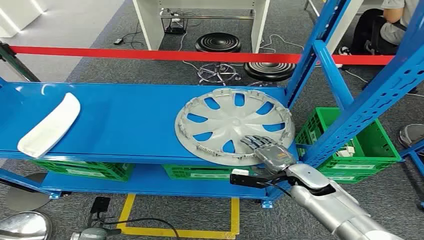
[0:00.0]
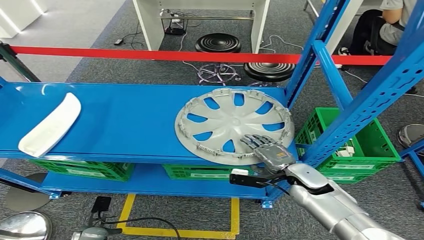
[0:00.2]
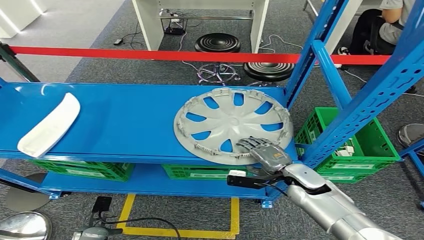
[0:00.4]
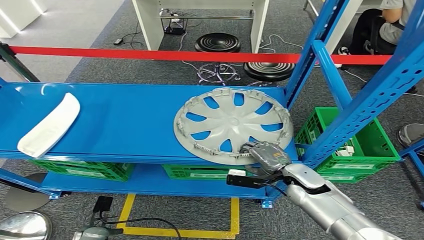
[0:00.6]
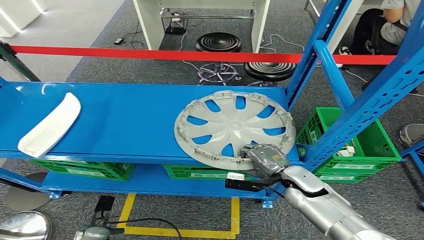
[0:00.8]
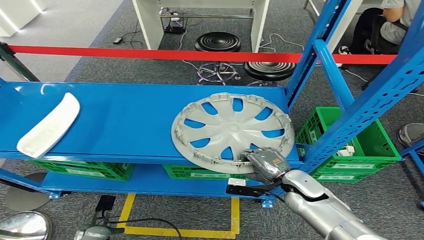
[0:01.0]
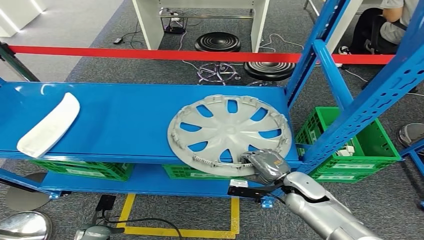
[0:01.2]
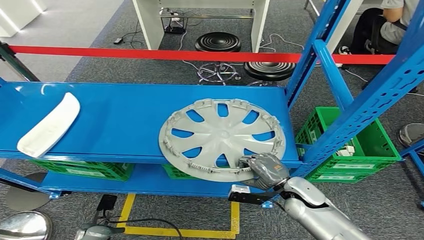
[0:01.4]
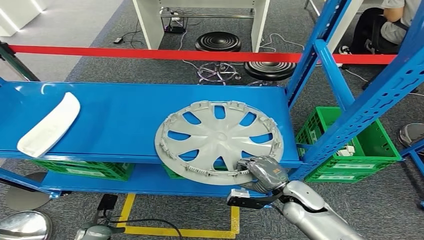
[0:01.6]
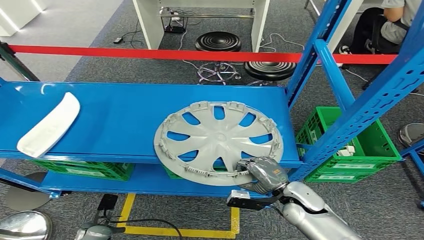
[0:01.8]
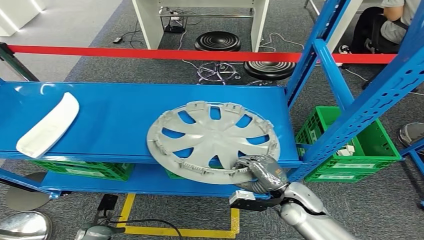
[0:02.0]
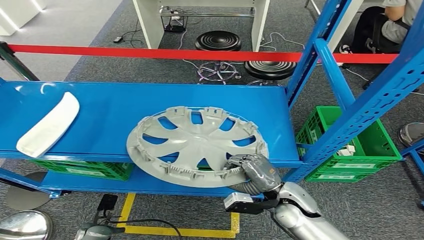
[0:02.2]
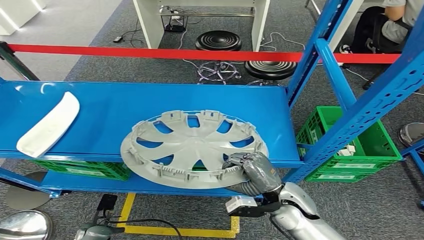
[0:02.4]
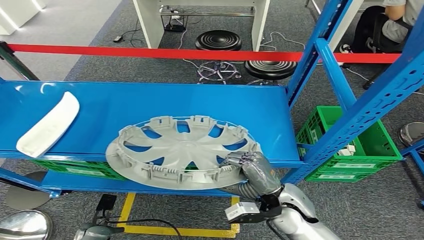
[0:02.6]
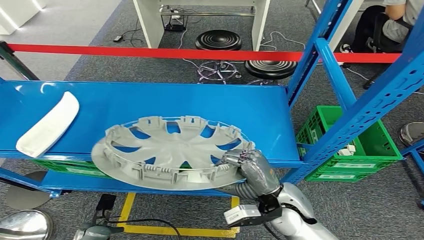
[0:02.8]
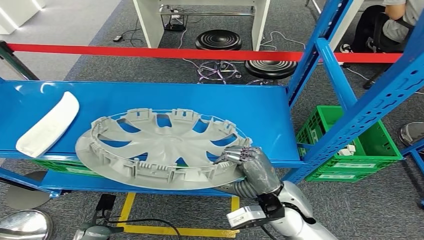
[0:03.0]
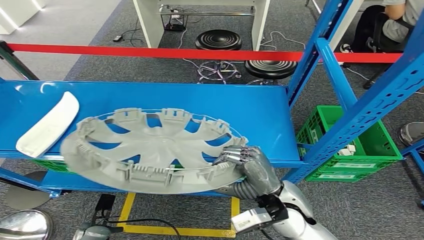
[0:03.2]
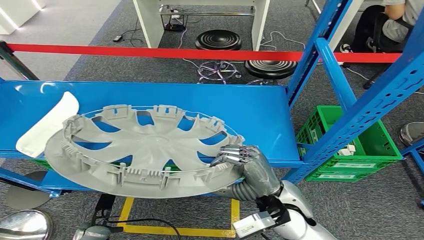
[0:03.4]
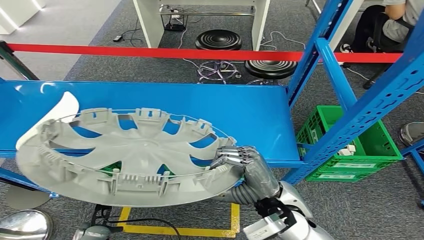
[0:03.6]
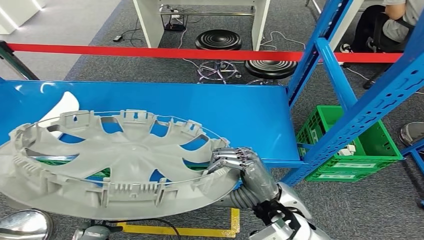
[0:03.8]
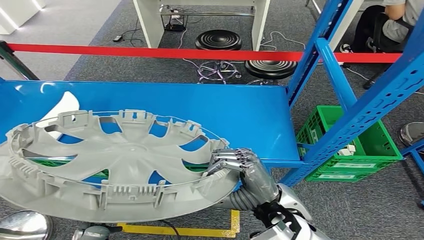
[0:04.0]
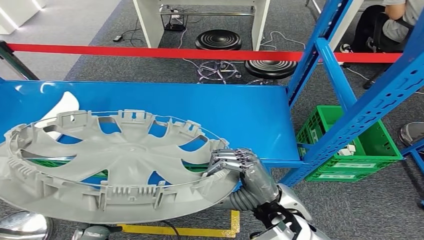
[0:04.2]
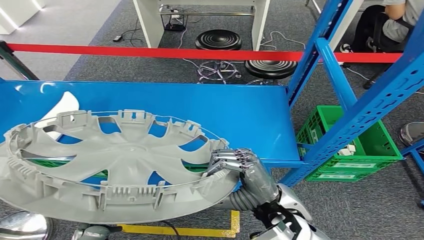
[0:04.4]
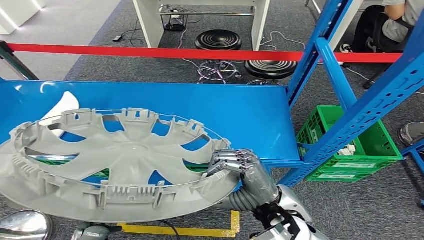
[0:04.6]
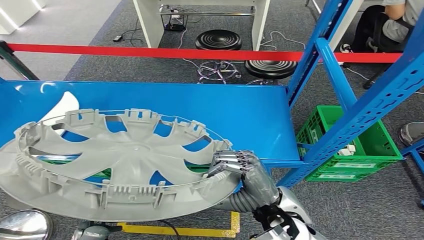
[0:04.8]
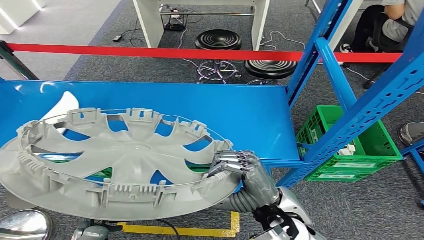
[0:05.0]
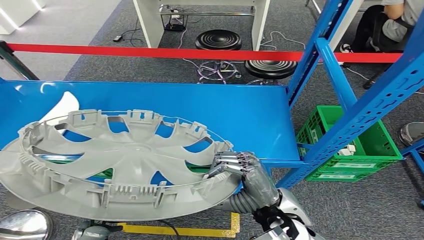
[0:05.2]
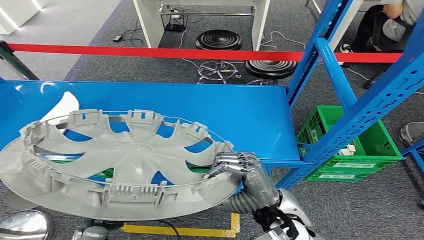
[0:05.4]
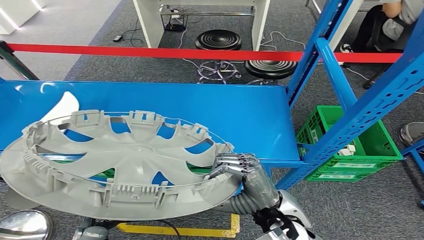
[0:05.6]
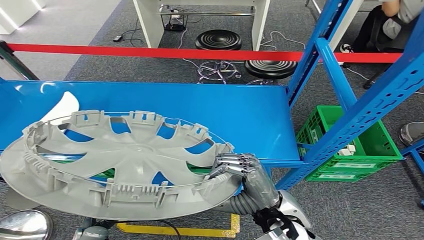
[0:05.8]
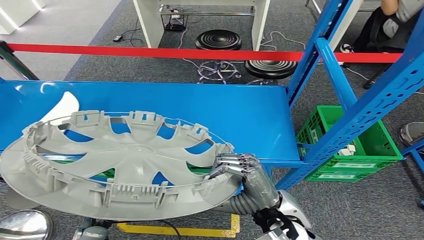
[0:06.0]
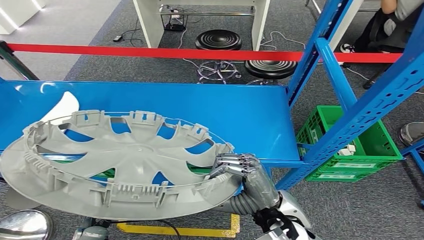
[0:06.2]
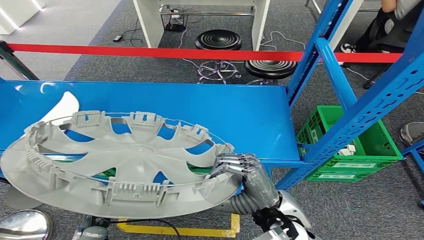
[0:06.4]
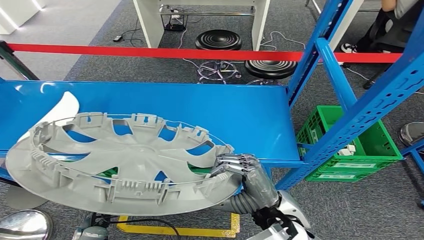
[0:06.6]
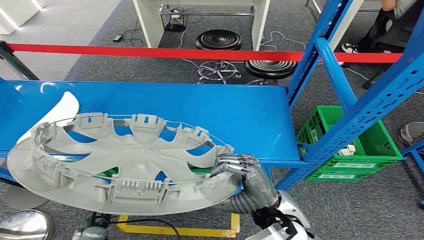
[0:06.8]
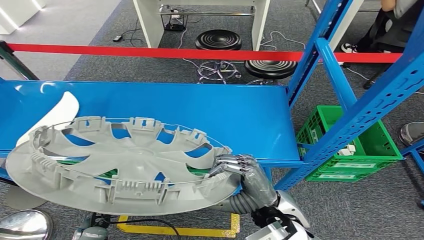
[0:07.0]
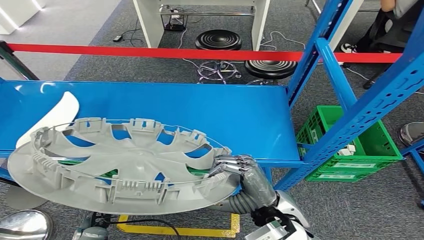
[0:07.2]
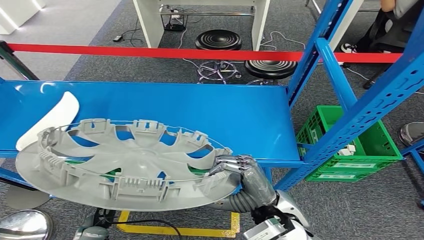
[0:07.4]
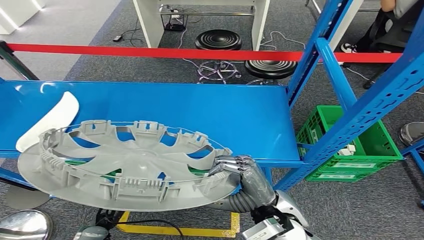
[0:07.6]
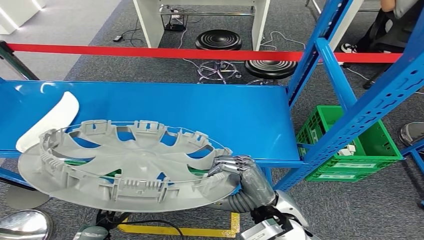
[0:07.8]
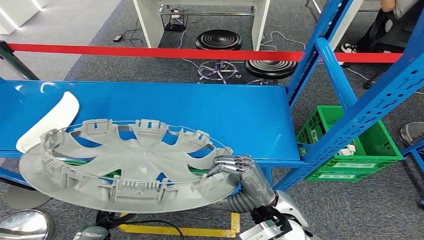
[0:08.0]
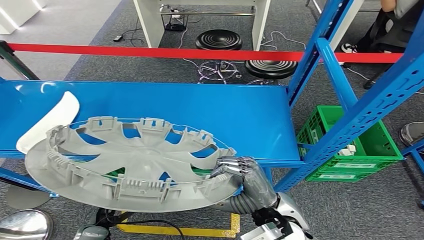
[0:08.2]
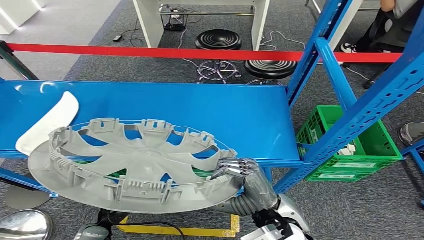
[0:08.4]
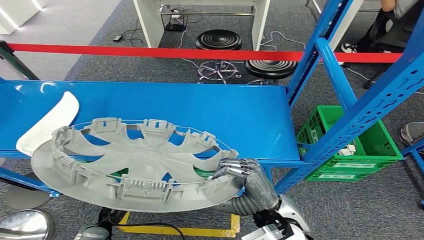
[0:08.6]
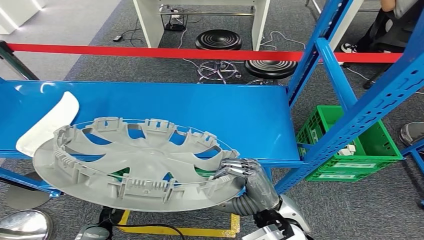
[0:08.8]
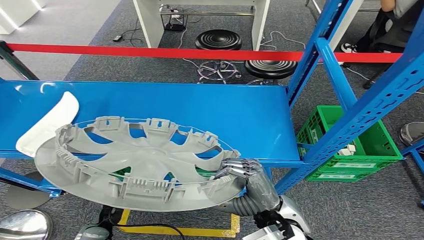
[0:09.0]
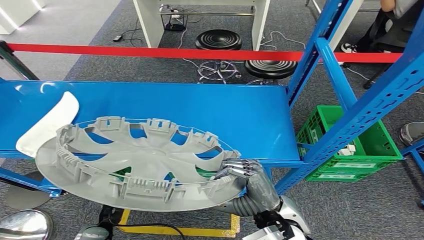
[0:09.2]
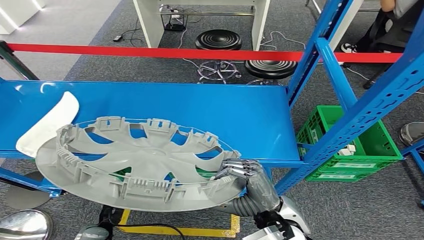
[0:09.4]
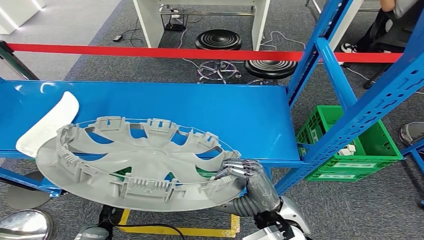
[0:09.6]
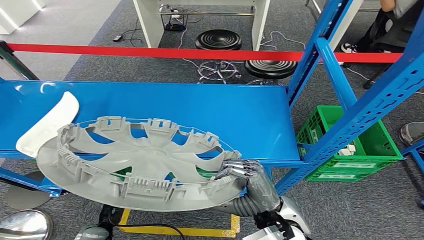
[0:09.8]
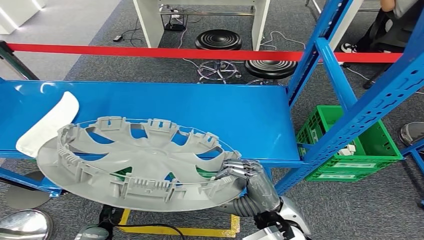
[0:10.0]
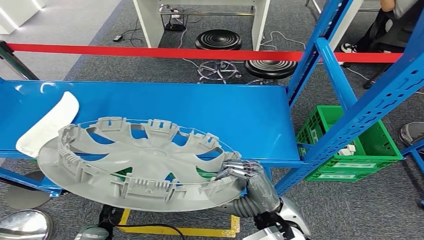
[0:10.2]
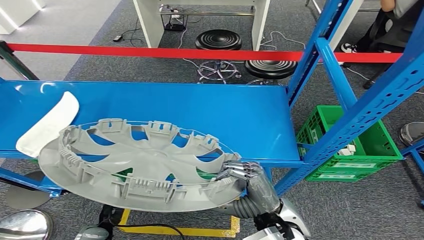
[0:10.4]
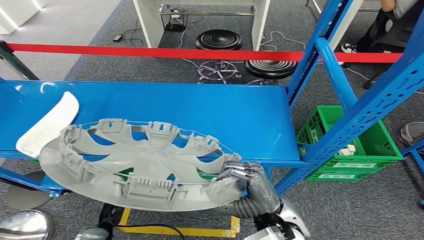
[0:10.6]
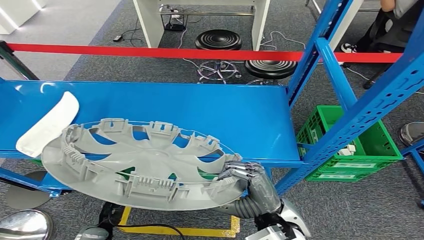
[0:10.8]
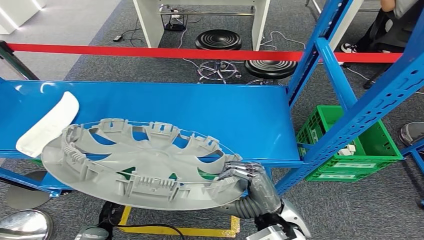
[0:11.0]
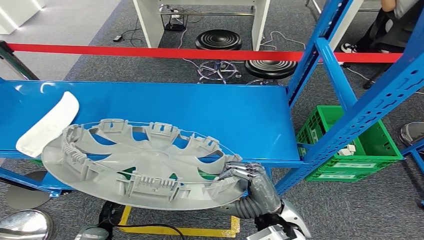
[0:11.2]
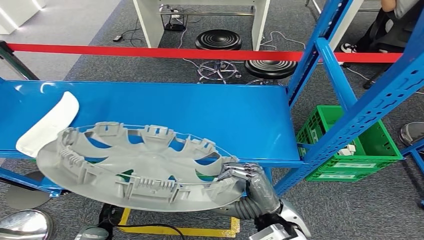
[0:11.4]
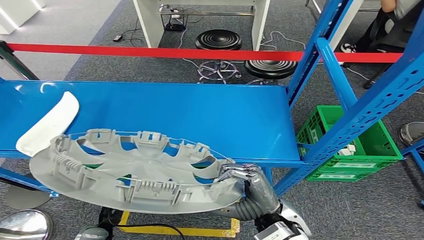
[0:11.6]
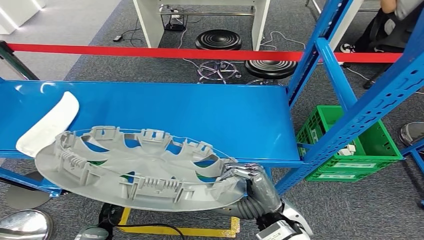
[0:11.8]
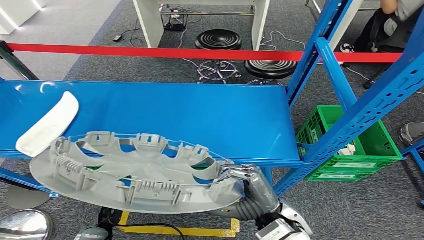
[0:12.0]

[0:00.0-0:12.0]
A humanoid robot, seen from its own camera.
Step, 0:00.0 to 0:00.6: Grasp the gray part with right gripper.
0:04.4 to 0:07.6: There are only small adjustments of the hands.
0:07.6 to 0:09.0: The hands move only a little.
0:09.0 to 0:10.4: Both hands stay about where they are.
0:10.4 to 0:12.0: The hands make only small movements.

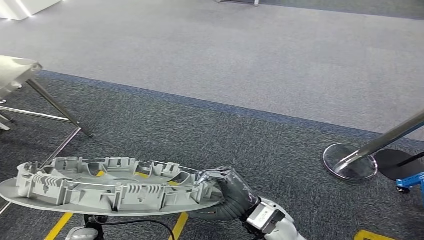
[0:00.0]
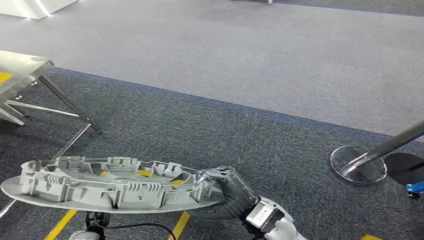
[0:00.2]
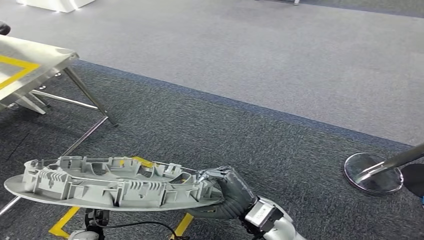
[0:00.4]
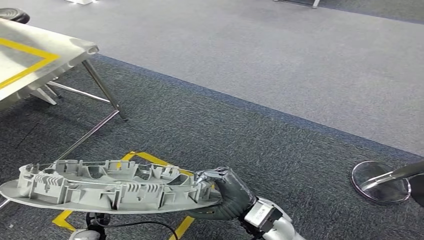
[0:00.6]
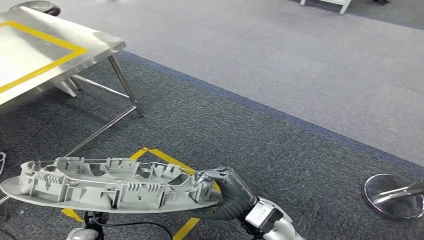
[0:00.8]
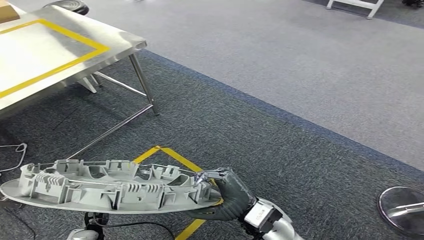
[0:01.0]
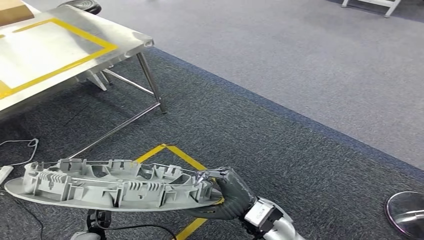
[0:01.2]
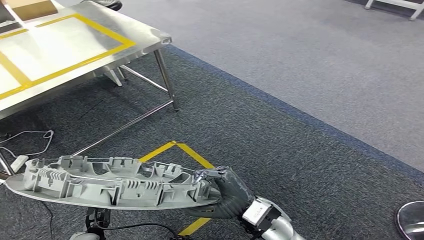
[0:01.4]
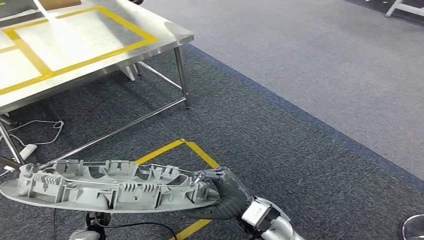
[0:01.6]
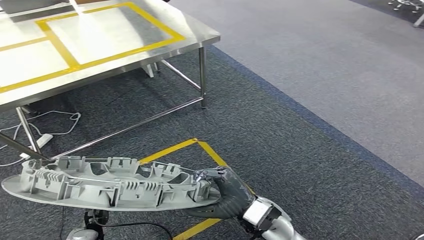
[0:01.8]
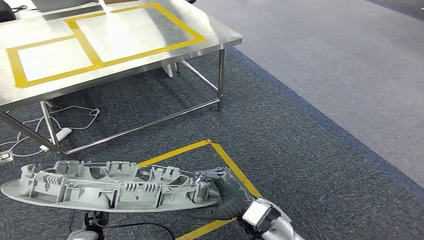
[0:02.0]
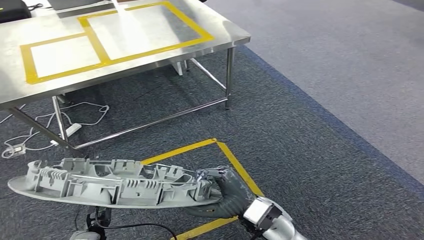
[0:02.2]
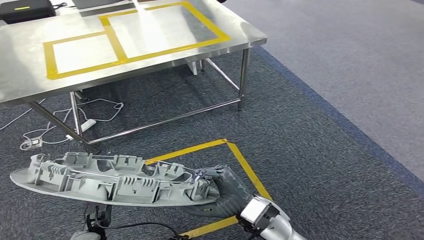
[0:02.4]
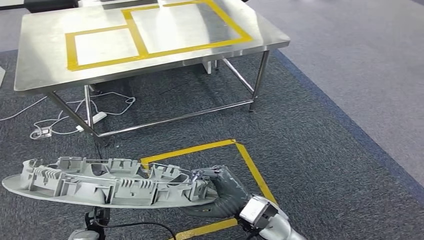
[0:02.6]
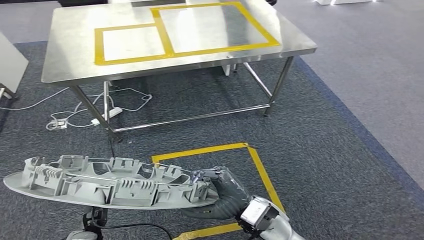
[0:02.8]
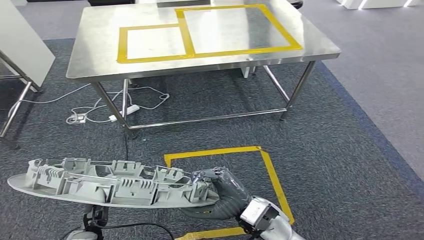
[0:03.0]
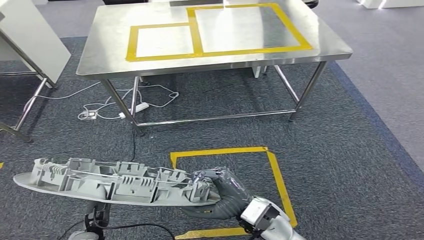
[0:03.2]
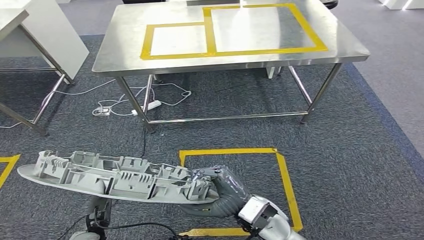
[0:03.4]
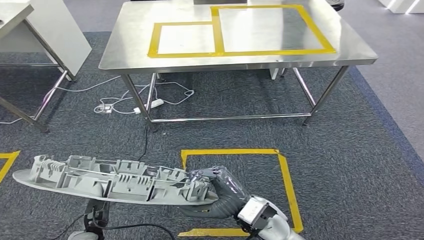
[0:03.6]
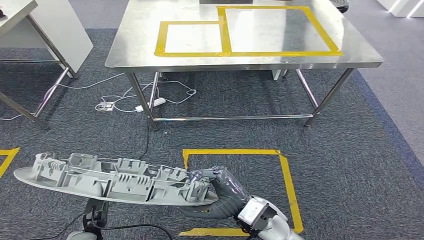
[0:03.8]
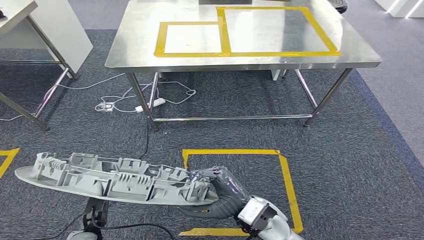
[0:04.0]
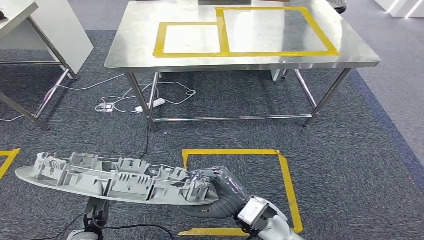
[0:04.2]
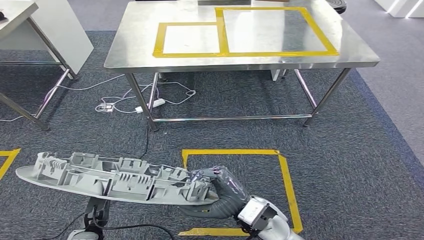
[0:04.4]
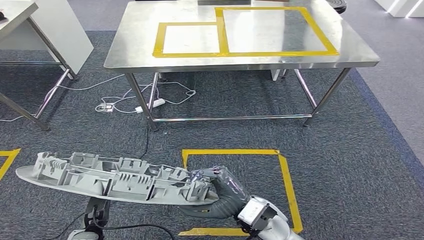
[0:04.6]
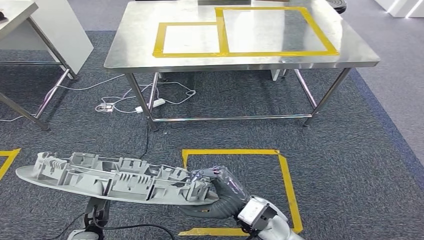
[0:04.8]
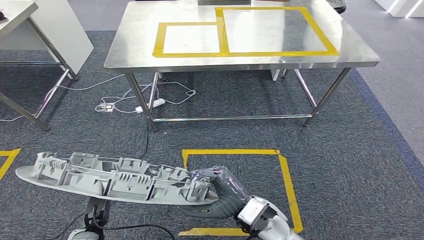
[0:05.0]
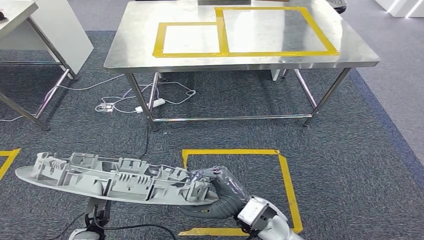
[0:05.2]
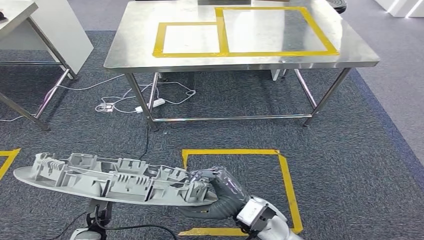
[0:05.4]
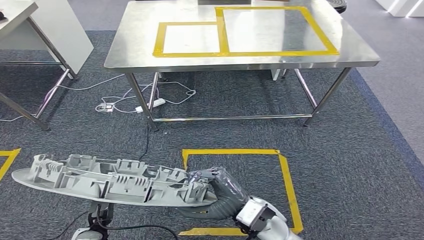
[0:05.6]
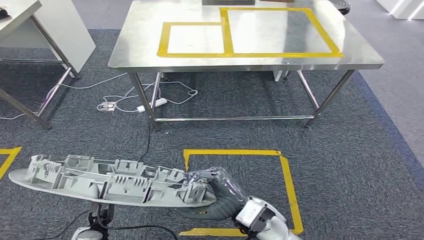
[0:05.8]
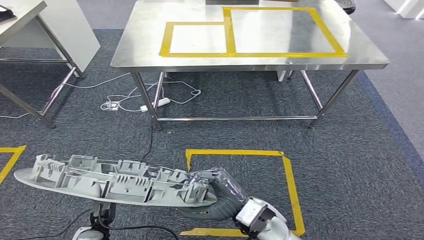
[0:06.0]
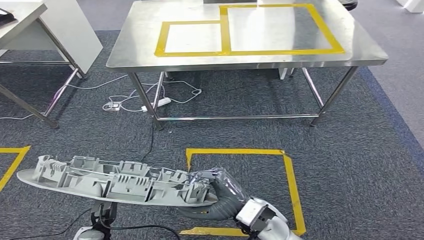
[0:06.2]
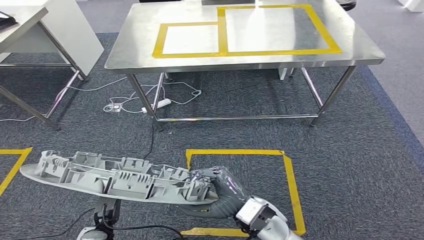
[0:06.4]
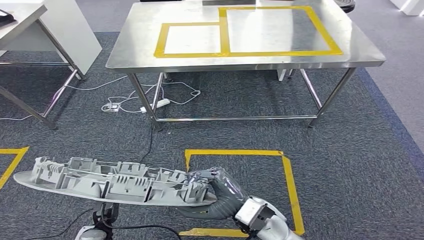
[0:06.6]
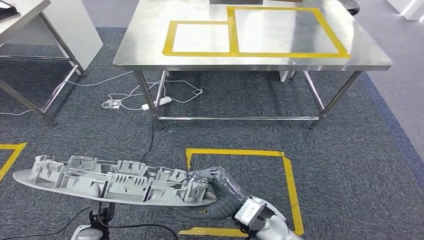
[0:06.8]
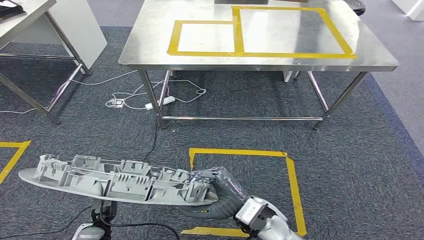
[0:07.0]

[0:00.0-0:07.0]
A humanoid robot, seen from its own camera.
0:04.2 to 0:05.6: The hands stay close to where they were, moving slightly.
